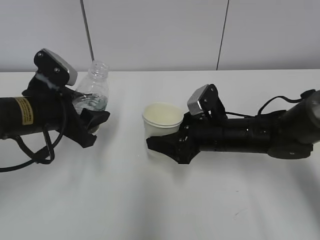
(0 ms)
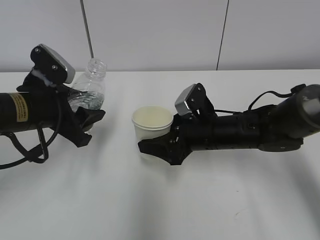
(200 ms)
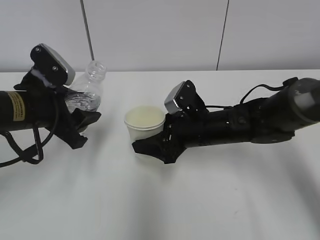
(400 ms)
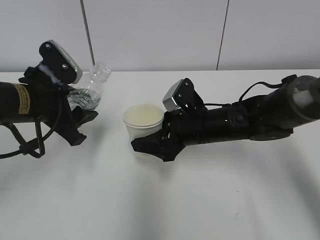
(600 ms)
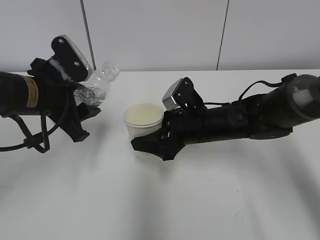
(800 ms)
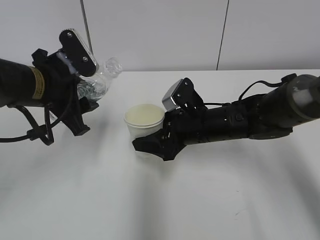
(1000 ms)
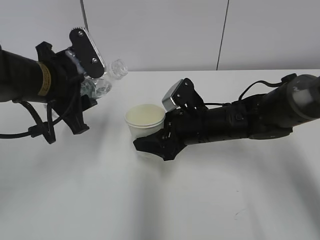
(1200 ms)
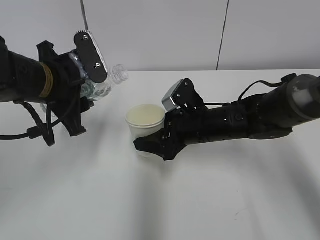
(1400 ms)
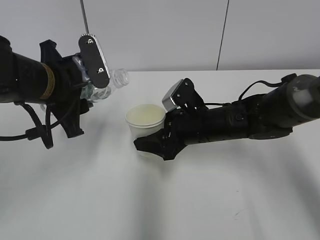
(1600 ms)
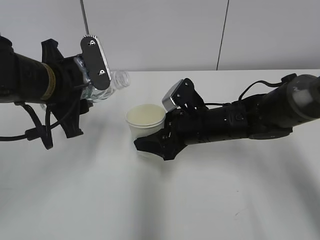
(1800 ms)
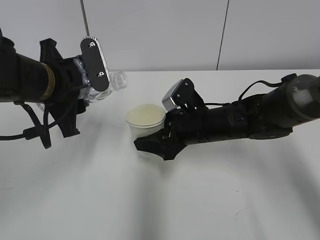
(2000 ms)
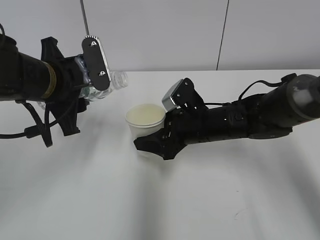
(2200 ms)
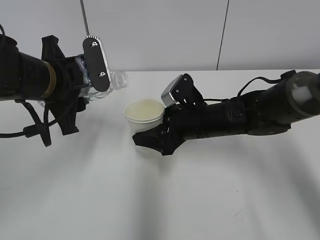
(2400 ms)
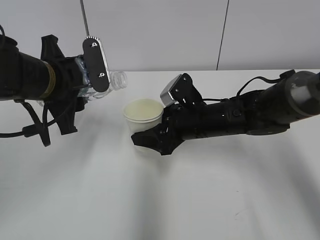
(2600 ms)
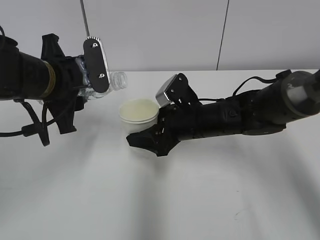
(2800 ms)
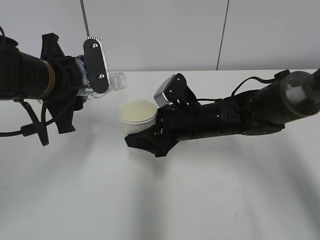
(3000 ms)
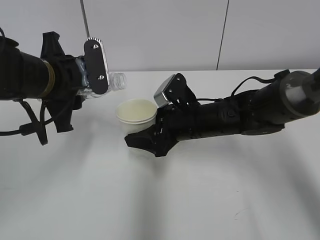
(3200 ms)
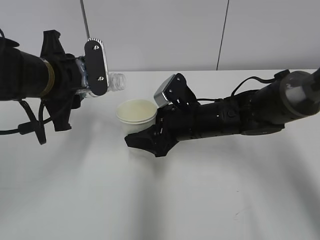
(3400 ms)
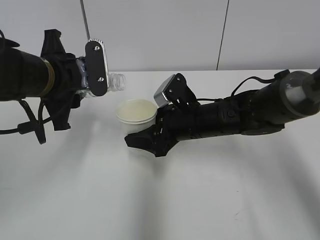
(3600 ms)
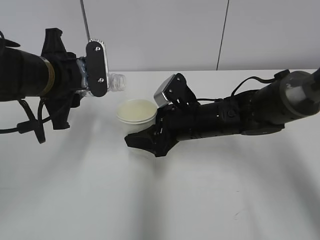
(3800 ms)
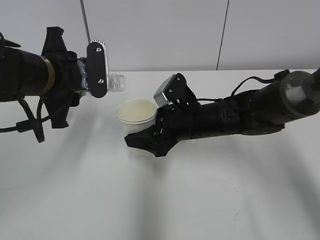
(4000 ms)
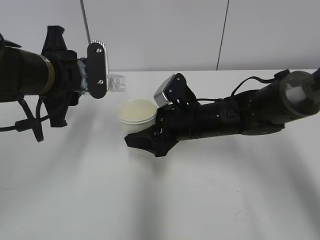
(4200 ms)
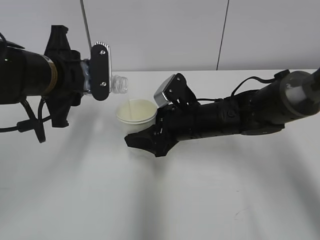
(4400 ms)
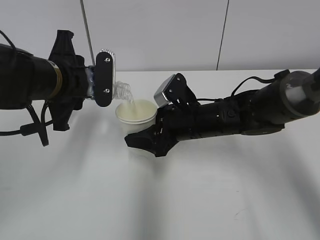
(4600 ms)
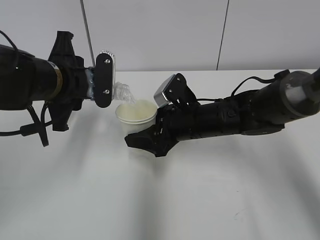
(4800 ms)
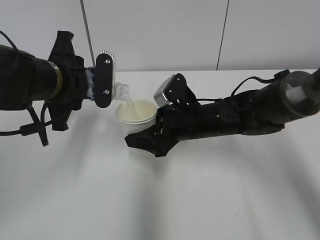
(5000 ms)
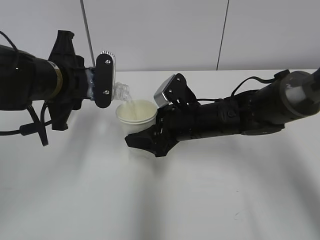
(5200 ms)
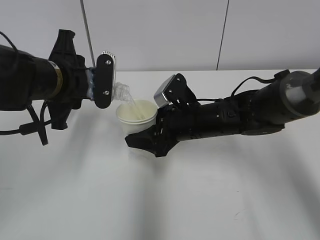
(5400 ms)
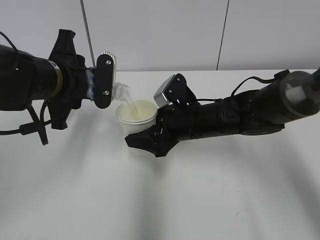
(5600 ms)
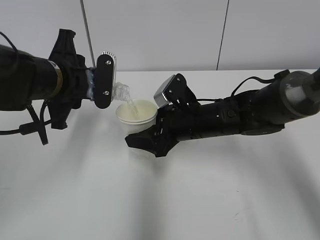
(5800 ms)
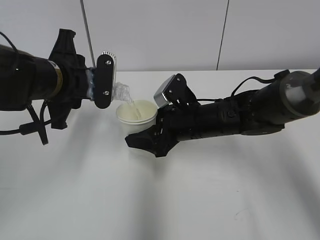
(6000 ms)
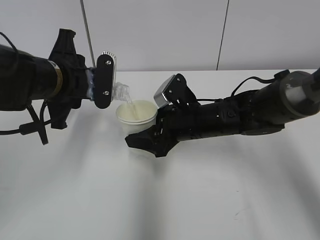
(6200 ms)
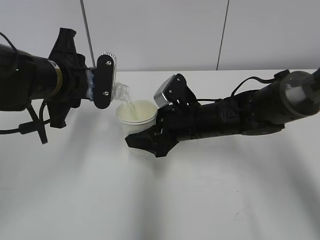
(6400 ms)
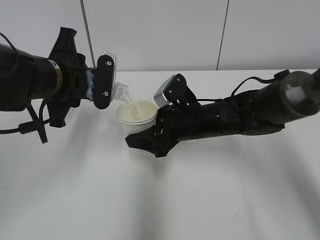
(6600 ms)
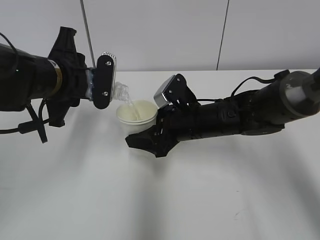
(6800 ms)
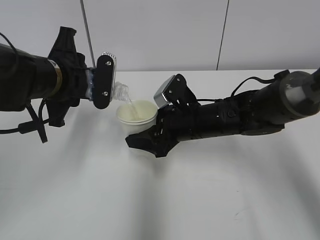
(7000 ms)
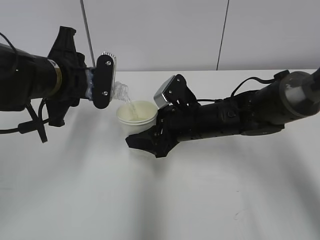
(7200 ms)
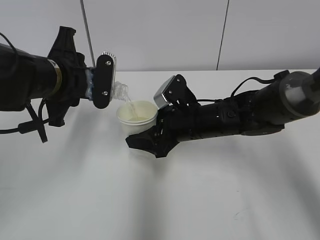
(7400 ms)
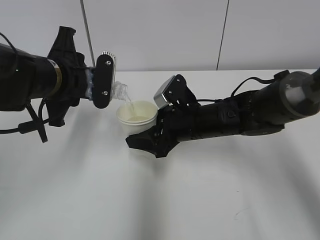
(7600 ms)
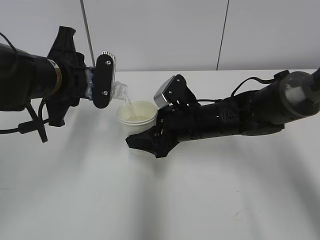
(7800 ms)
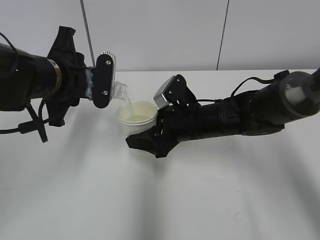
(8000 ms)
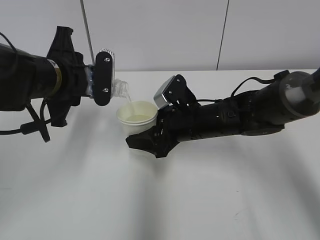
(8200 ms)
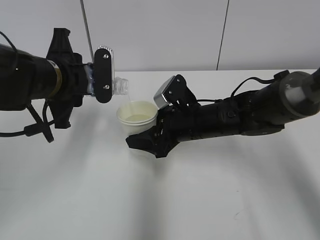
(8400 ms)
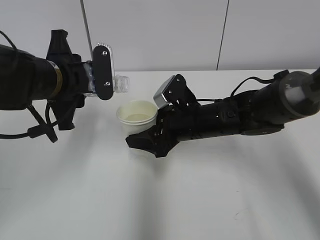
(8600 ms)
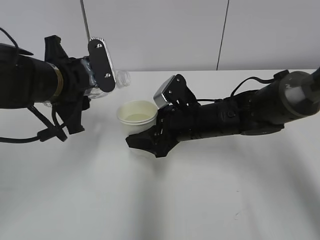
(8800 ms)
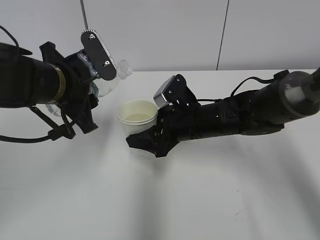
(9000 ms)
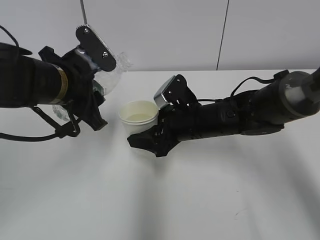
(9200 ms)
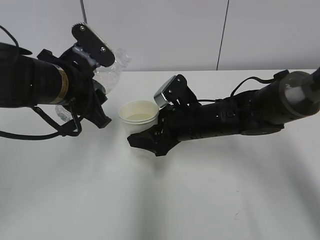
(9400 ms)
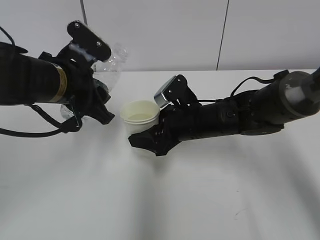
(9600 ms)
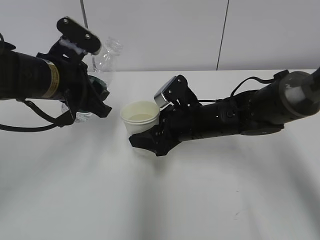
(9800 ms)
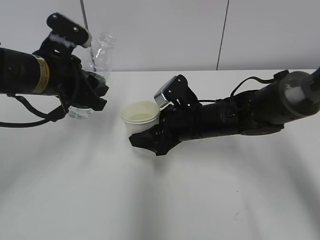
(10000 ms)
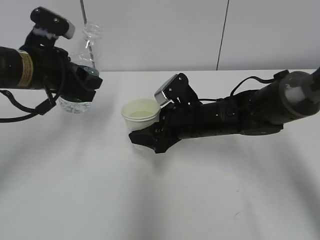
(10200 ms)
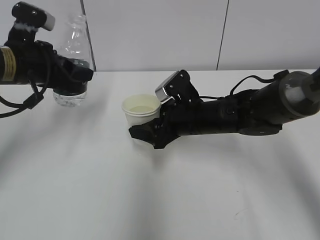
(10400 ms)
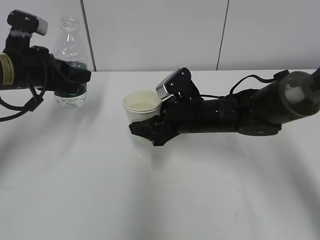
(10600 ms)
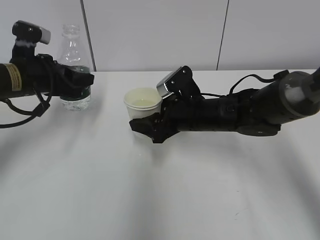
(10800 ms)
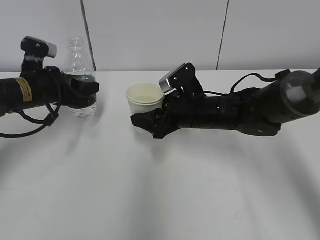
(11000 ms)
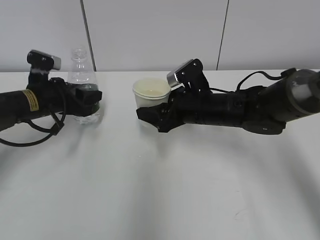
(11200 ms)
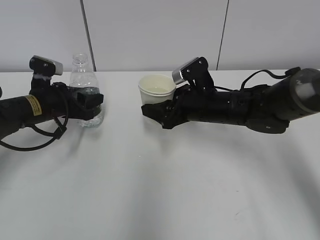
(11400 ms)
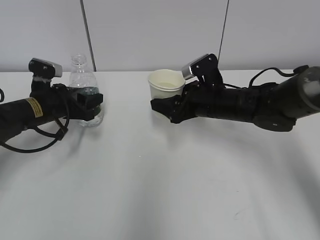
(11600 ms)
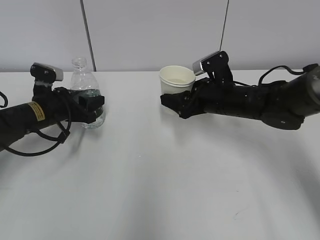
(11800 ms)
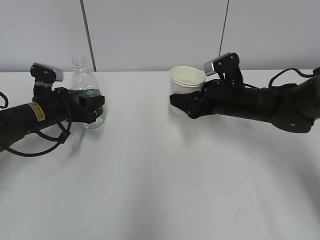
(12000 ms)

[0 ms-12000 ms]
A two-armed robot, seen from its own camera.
Step, 1600 ms to 5000 ms: Fill water with the right hand.
Step, 1600 ms to 5000 ms: Pour water with the left hand.
Step, 7200 ms to 11800 ms: Place the paper cup with the right hand.
0 ms to 1600 ms: The left gripper travels upward by approximately 5 cm.
1600 ms to 3000 ms: The grippers make only small movements.
3000 ms to 6000 ms: The grippers make only small movements.
6000 ms to 7600 ms: The two grippers keep their place.
9000 ms to 10400 ms: The left gripper is displaced to the left by approximately 5 cm.
10400 ms to 12000 ms: The right gripper is displaced to the right by roughly 10 cm. The left gripper shifts roughly 15 cm downward.

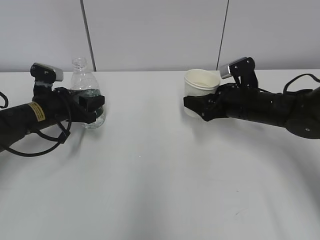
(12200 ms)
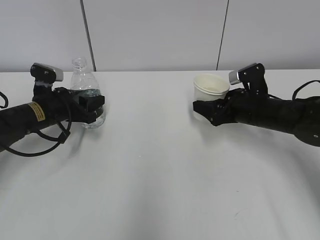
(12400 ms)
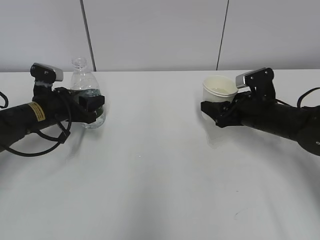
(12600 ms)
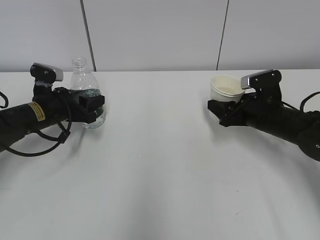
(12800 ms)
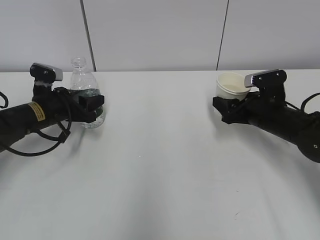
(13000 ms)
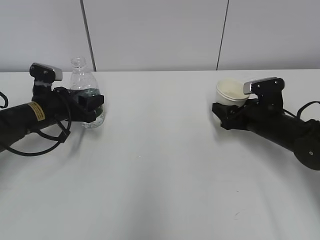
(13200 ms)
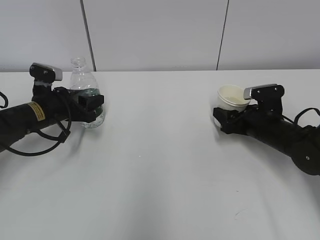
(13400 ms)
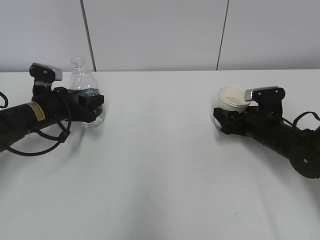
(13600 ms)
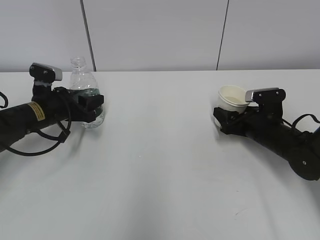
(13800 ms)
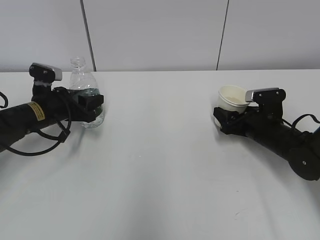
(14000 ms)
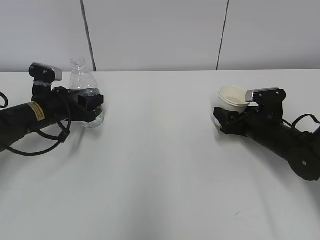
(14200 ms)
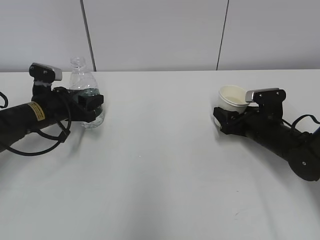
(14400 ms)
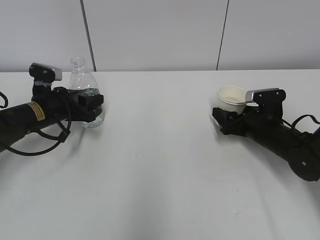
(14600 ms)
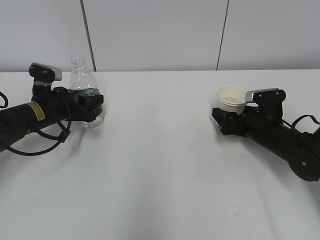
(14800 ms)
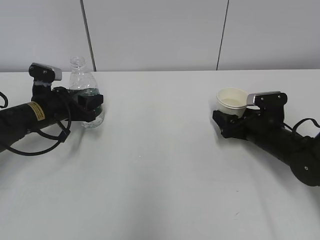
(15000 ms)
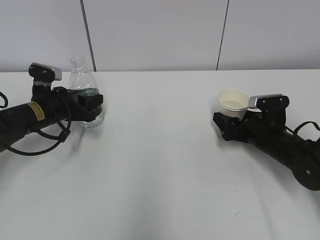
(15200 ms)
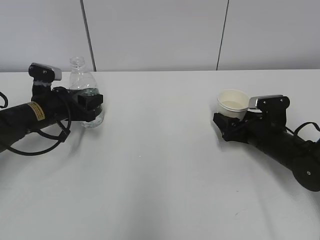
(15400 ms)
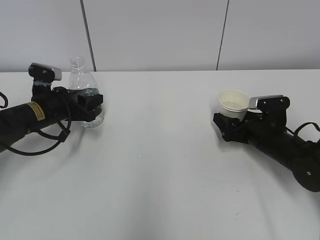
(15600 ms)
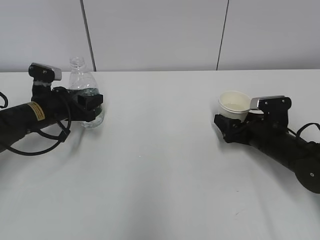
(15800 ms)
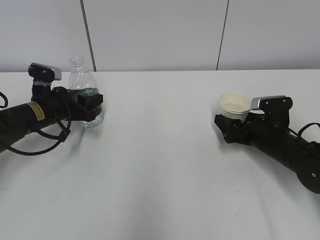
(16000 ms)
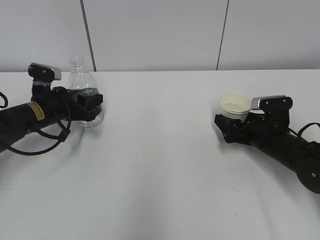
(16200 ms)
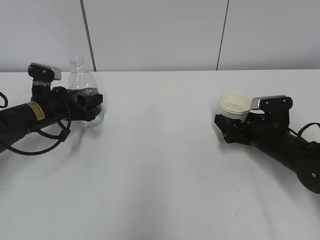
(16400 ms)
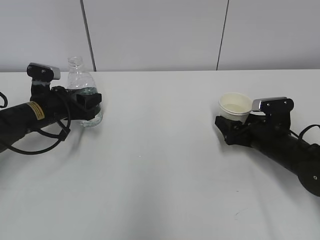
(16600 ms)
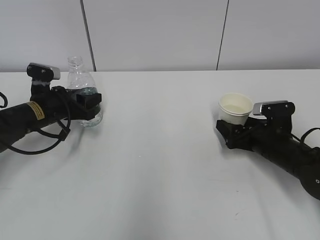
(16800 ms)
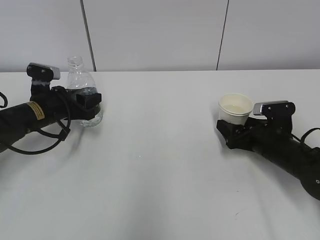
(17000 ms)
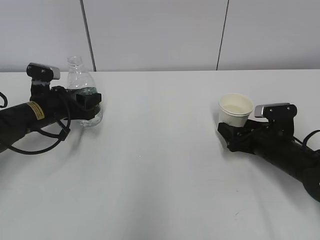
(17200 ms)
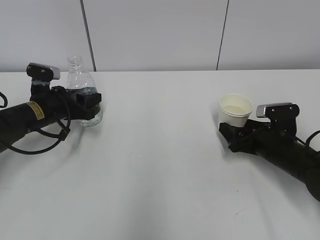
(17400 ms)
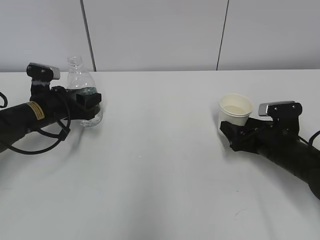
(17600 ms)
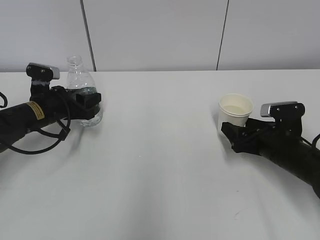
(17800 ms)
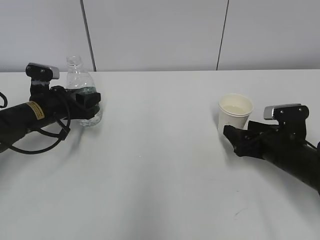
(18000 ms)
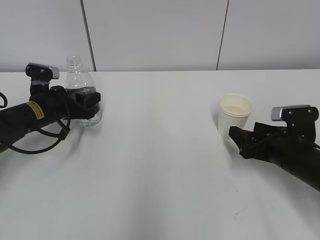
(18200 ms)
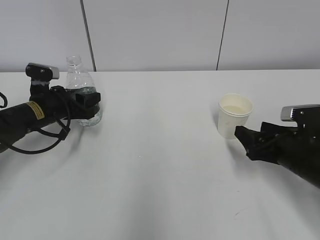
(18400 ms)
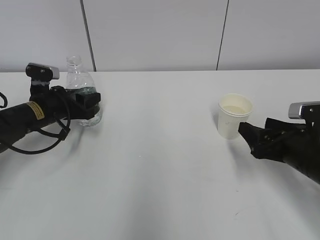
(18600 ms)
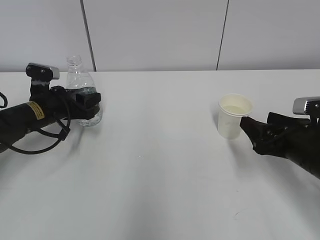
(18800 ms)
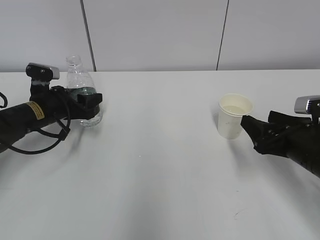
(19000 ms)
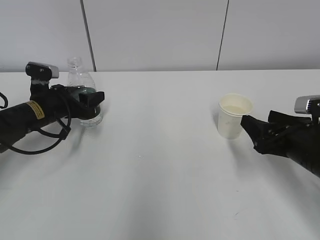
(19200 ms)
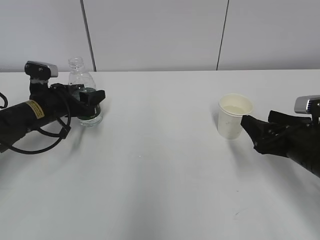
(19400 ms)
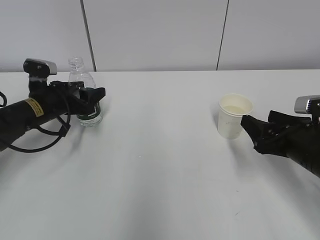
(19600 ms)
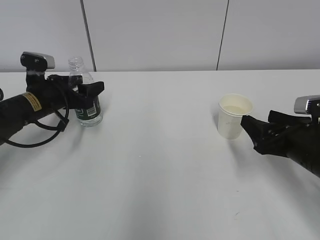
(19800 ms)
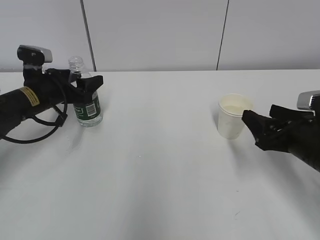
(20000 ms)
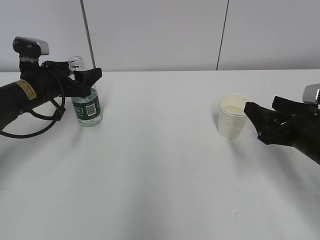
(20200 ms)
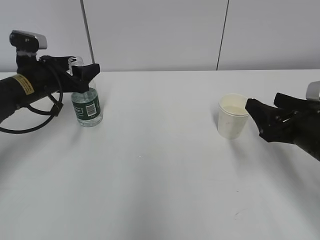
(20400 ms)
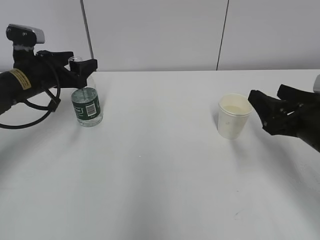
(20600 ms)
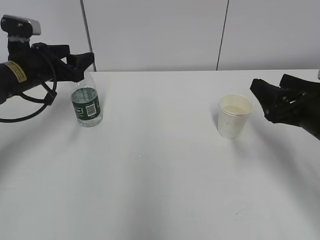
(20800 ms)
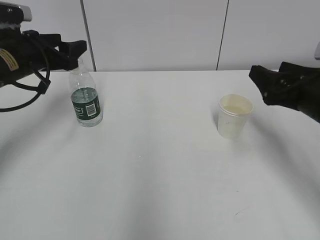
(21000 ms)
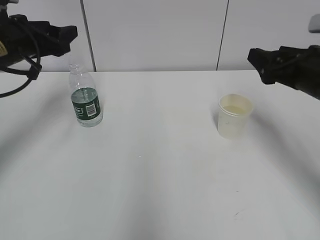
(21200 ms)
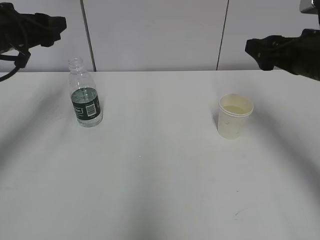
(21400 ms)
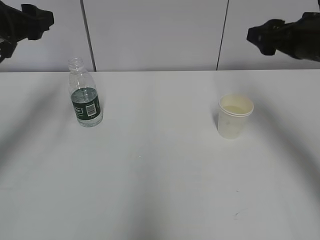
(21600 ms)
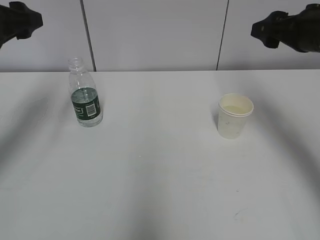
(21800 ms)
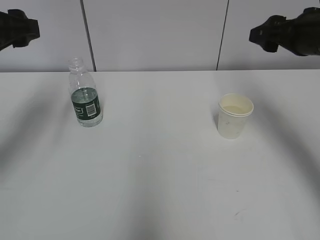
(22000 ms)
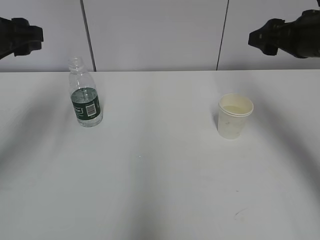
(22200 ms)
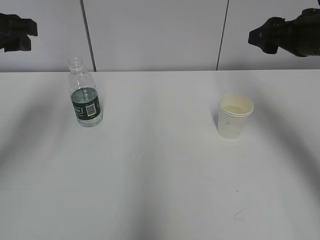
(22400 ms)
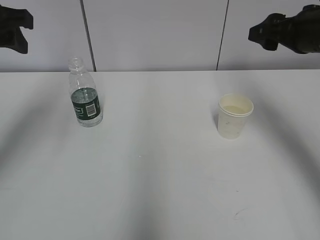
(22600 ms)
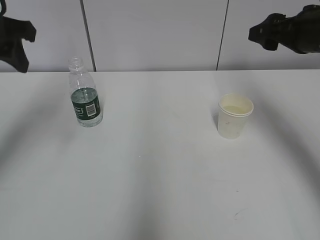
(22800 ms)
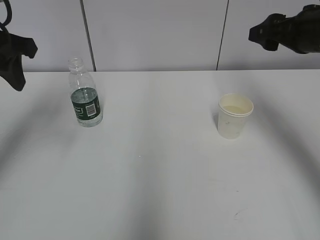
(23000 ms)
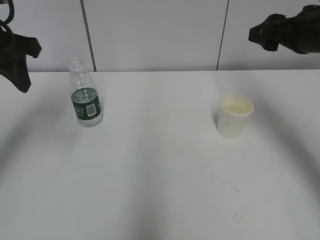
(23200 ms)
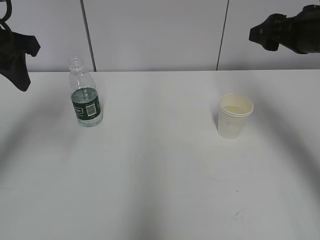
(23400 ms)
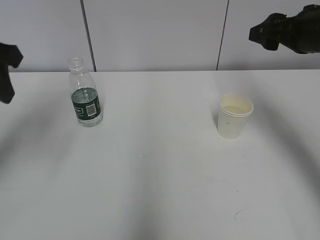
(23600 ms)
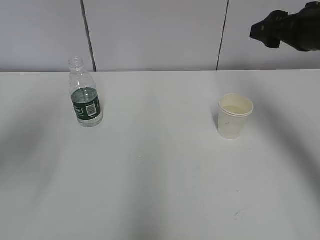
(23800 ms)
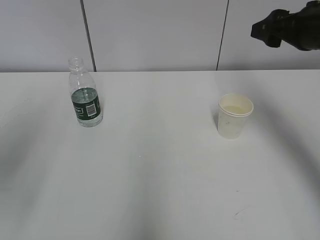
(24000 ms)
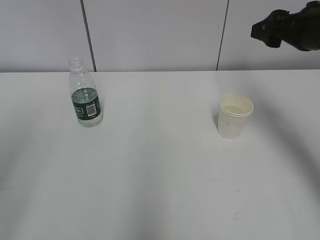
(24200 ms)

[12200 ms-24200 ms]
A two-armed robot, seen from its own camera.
12200 ms to 13800 ms: The right gripper heads downward, covering about 5 cm.
13800 ms to 15200 ms: The right gripper opens.
15200 ms to 16600 ms: The grippers stay close to where they were, moving slightly.
16600 ms to 18200 ms: The right gripper moves backward, some 5 cm.
18200 ms to 19800 ms: The right gripper shifts by about 5 cm. Meanwhile the left gripper opens up.
19800 ms to 21200 ms: Both grippers move upward, roughly 10 cm.
21200 ms to 22600 ms: The left gripper goes some 15 cm upward and backward. Meanwhile the right gripper shifts some 5 cm upward.
22600 ms to 24200 ms: The left gripper heads backward, covering approximately 20 cm.
